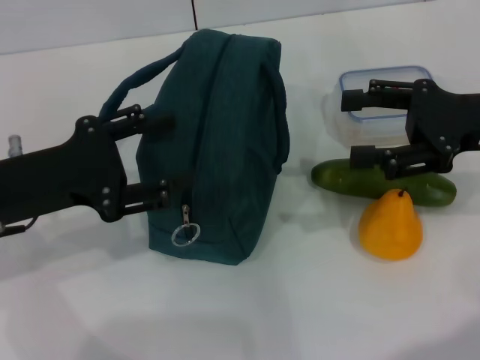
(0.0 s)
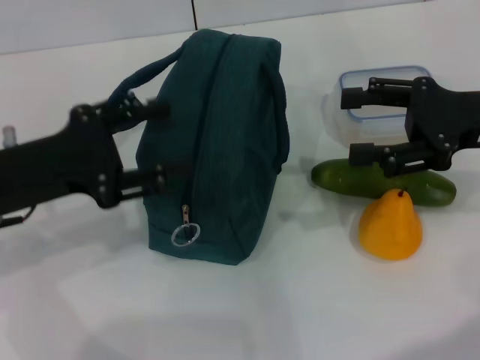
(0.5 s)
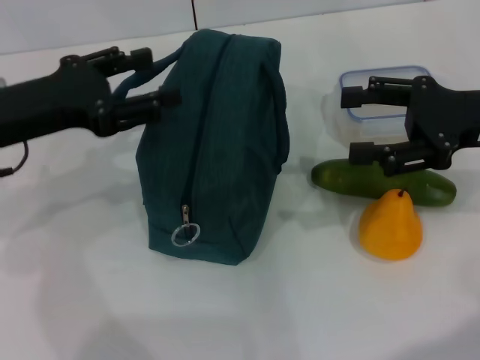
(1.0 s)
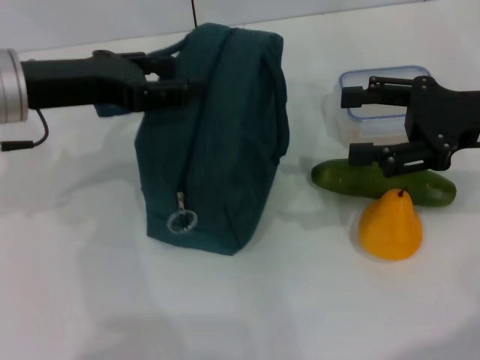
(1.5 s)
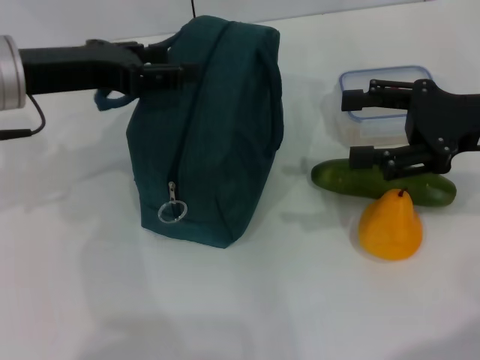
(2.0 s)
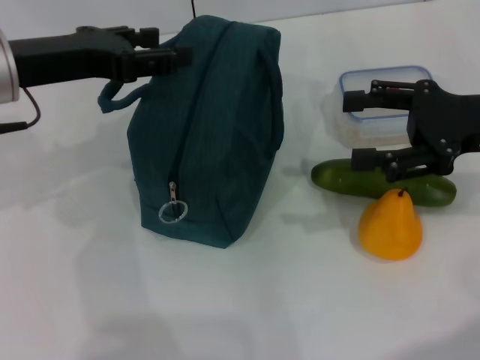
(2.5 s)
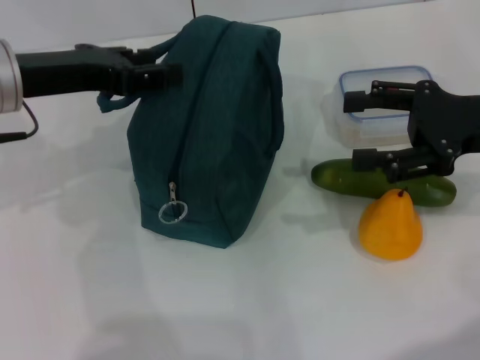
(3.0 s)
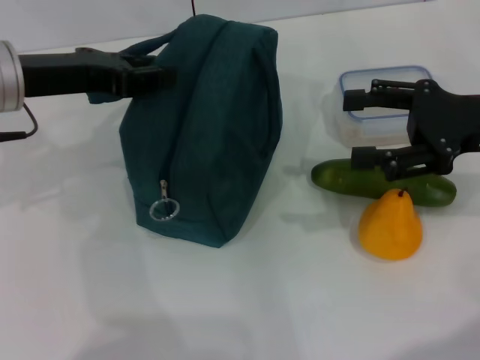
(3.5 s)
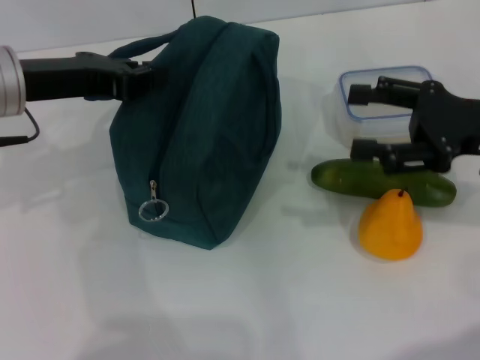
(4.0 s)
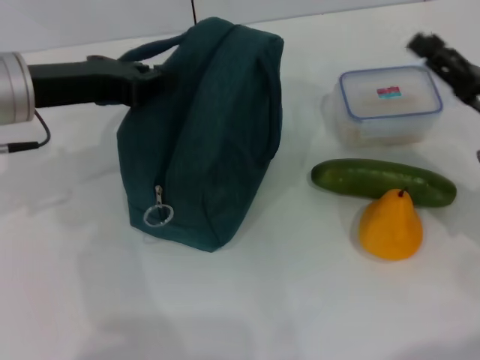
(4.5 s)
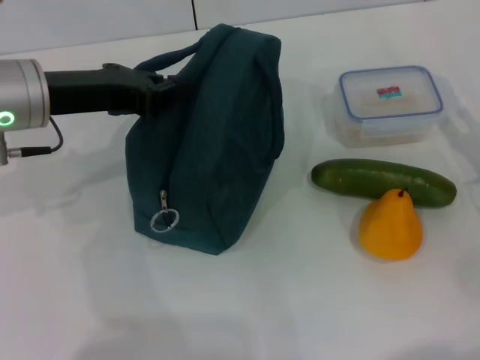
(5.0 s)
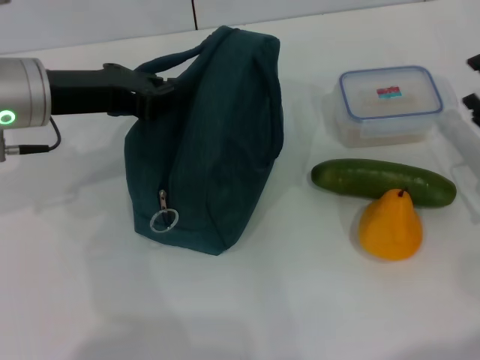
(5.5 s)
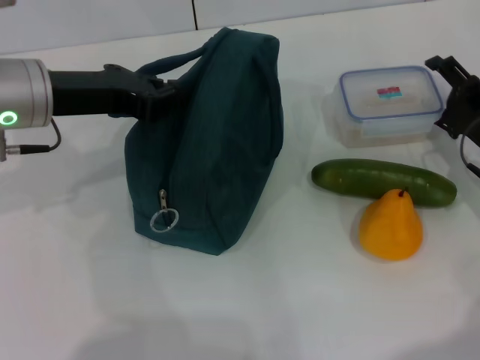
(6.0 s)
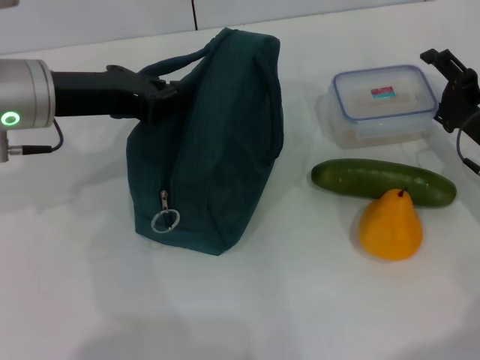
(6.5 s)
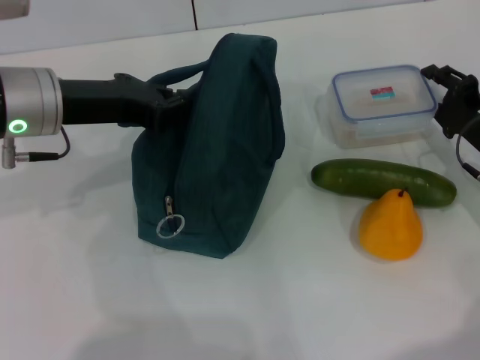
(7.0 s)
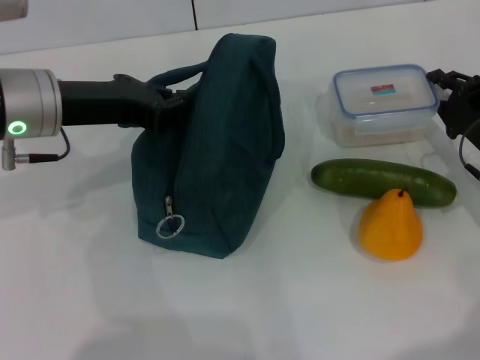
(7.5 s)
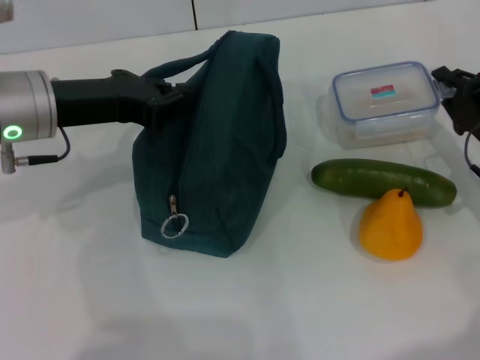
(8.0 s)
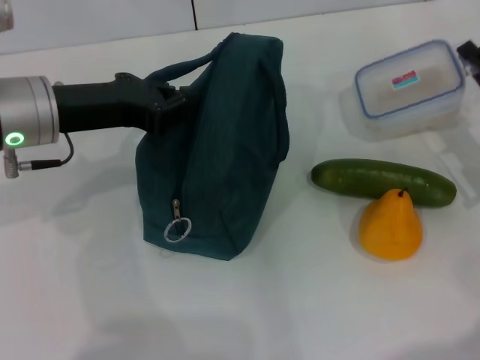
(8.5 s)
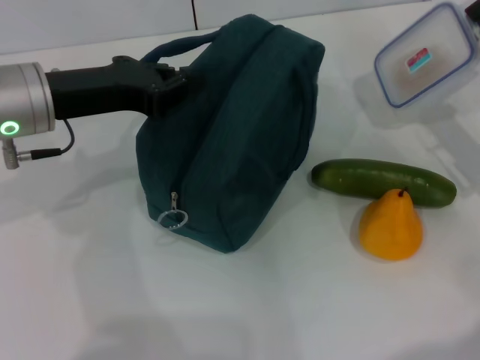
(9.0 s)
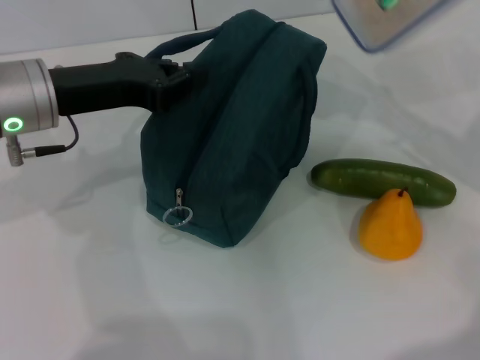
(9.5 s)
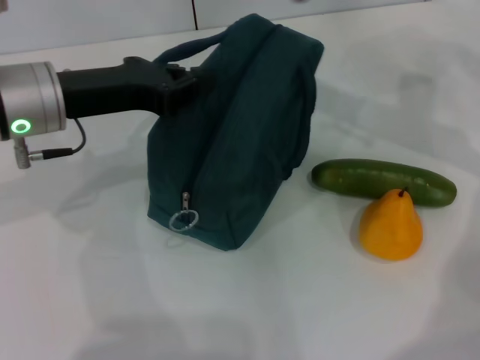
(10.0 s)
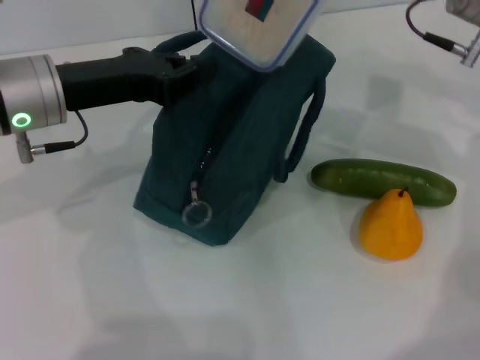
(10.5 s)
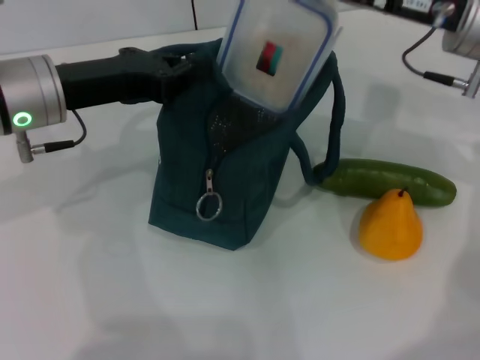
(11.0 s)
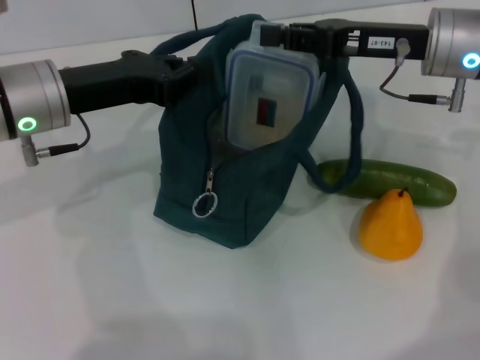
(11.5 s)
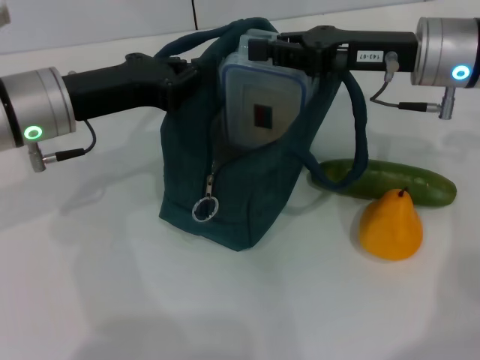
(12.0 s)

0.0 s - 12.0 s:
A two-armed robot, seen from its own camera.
Step, 0.0 s - 4.0 s: Hold the lunch bag with your left hand.
Step, 4.5 s - 8.0 s: Pick up the lunch box with your right hand.
0.0 s - 2.0 s: The left gripper shifts about 10 cm forward and upward.
2.0 s - 4.0 s: The left gripper closes.
4.0 s - 6.0 s: The right gripper is displaced downward by some 10 cm.
6.0 s - 8.0 s: The right gripper closes.
8.0 s - 10.0 s: The right gripper shifts roughly 20 cm upward.
10.0 s - 12.0 s: The right gripper heads to the left and downward, covering some 10 cm.

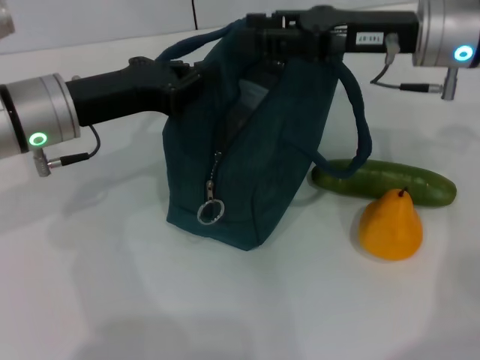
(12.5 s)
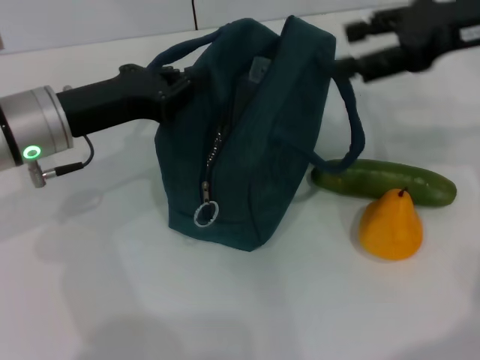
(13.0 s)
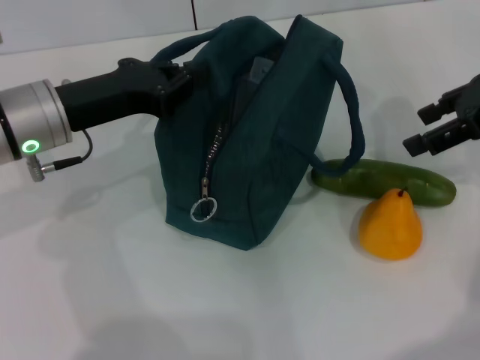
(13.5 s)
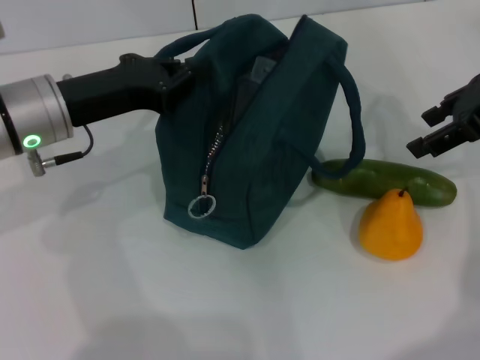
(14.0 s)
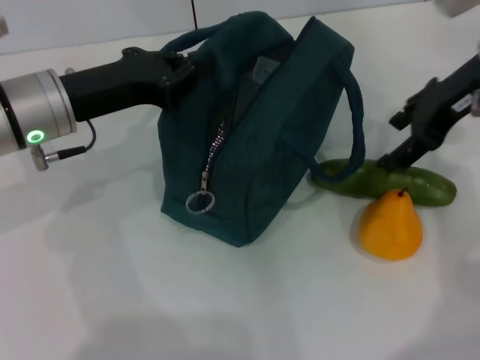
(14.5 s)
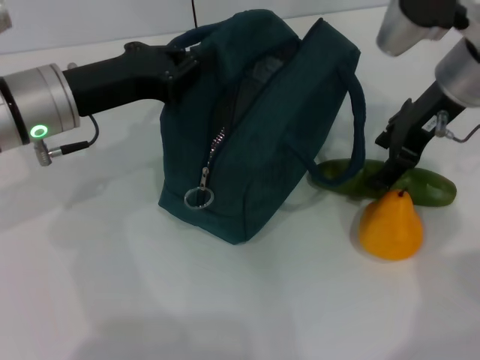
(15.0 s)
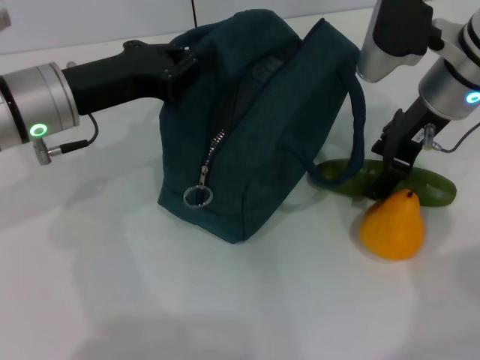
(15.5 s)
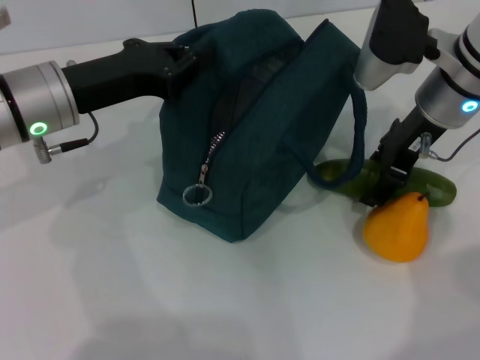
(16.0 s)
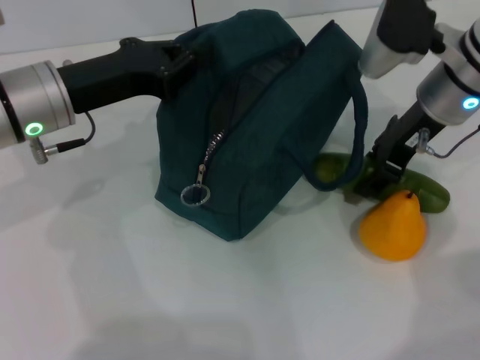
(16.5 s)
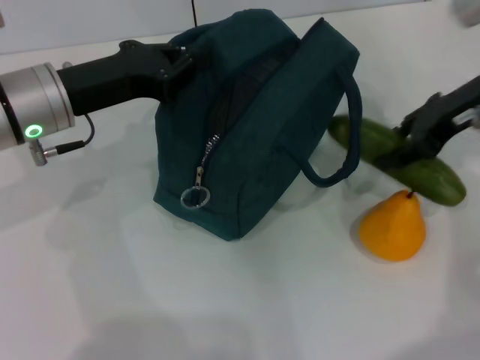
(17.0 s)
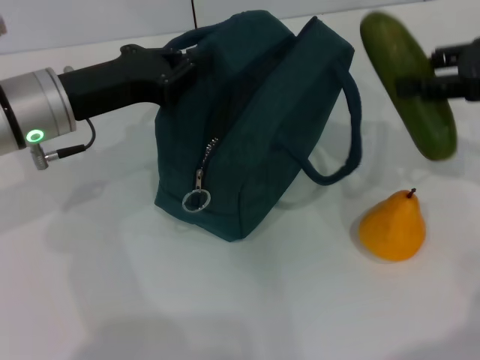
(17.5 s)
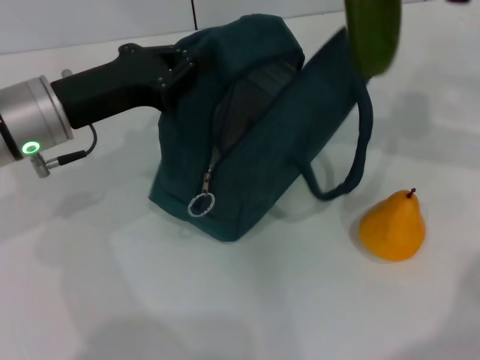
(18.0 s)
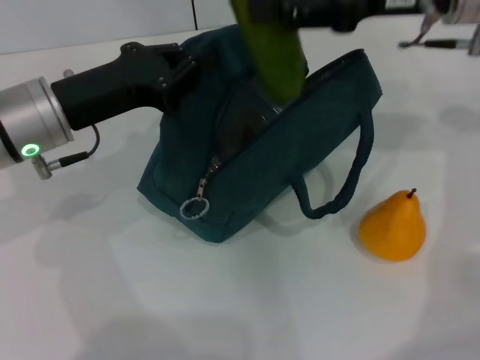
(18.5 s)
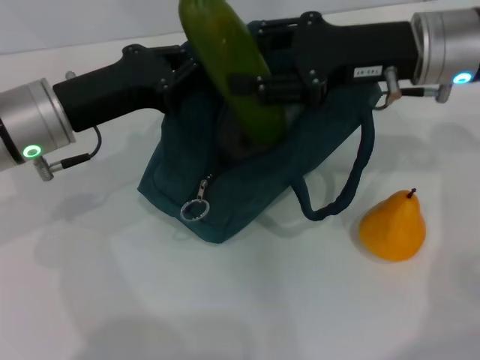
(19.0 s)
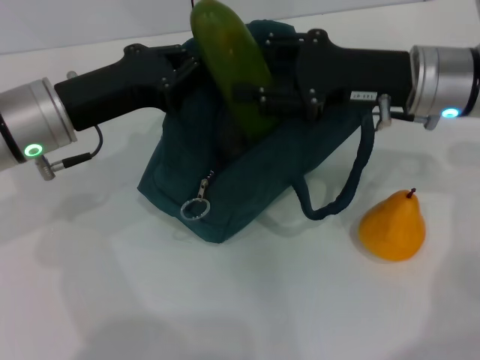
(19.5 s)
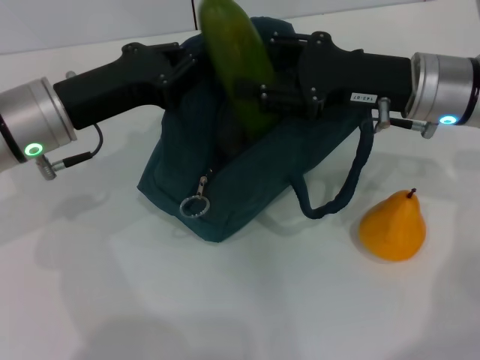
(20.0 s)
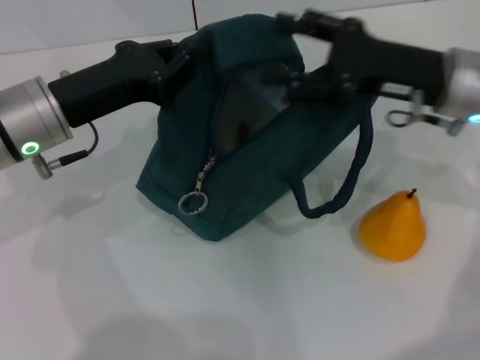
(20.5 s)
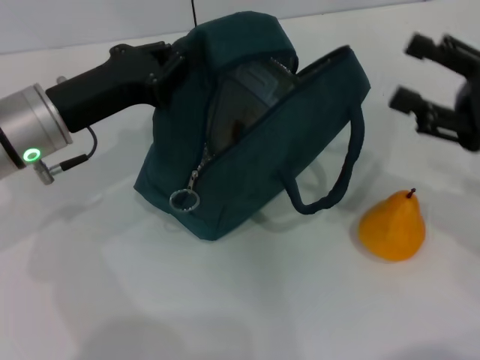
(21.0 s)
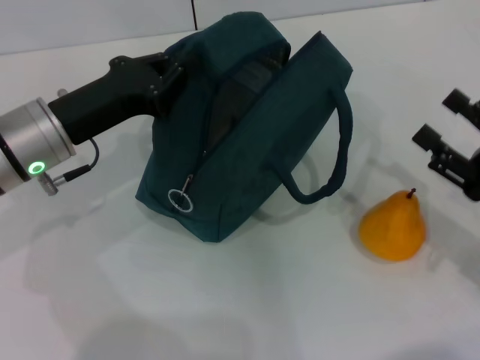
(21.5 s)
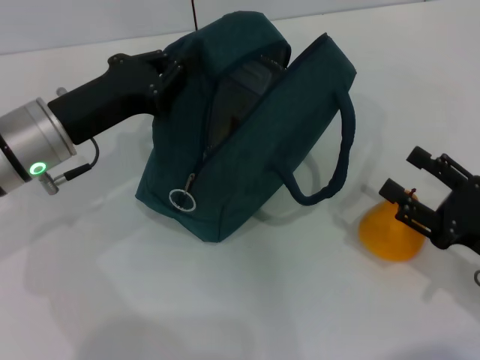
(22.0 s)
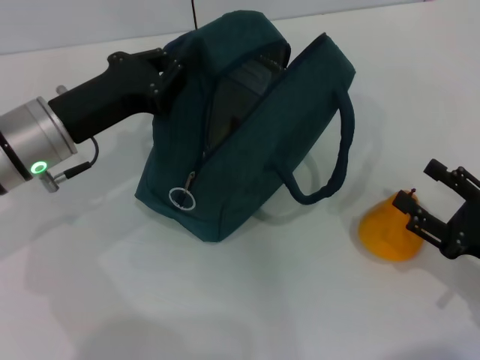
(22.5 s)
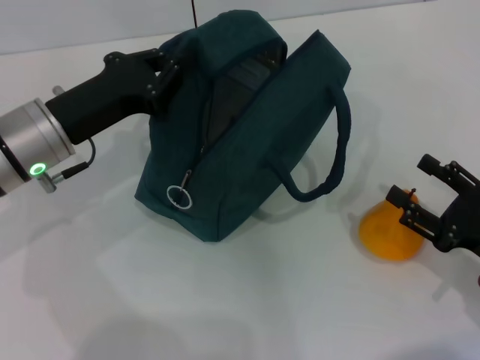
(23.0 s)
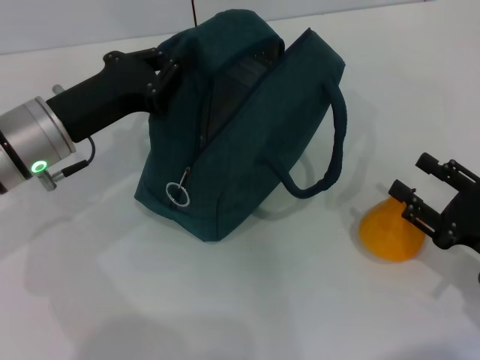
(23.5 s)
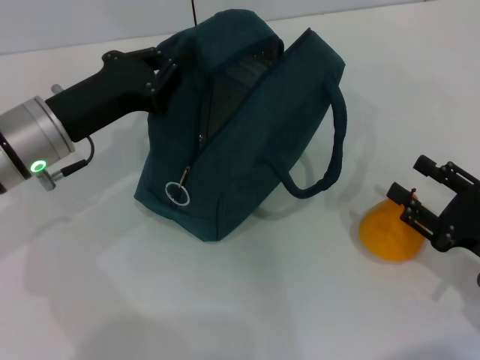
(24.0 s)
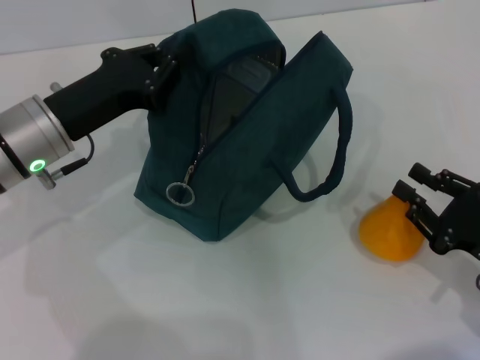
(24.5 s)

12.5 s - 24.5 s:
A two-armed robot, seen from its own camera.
Step, 12.5 s - 16.0 s: Pick up the cucumber with your right hand.
Step, 16.5 s - 20.0 s: Put the cucumber into the lunch bag with your right hand.
12.5 s - 14.5 s: The right gripper opens its fingers.
14.5 s - 16.5 s: The right gripper moves some 5 cm.
16.5 s - 18.5 s: The right gripper shifts approximately 5 cm upward, and travels to the right and back again, some 10 cm each way.
18.5 s - 20.5 s: The right gripper goes about 10 cm downward.
20.5 s - 22.5 s: The right gripper is displaced backward and downward by approximately 20 cm.
22.5 s - 24.5 s: The grippers make only small movements.

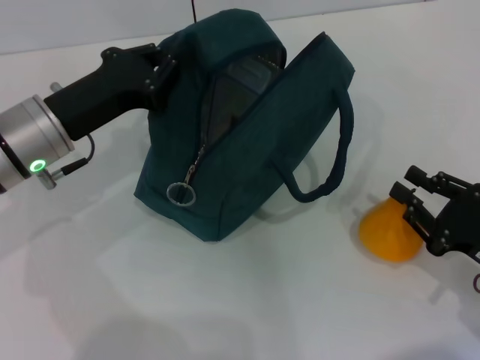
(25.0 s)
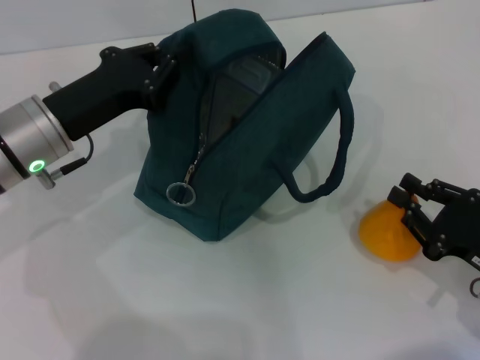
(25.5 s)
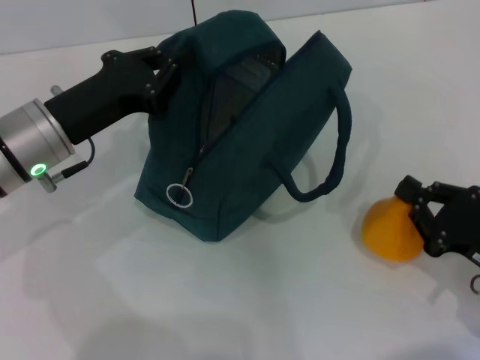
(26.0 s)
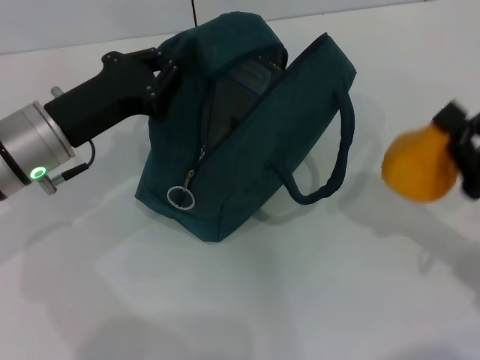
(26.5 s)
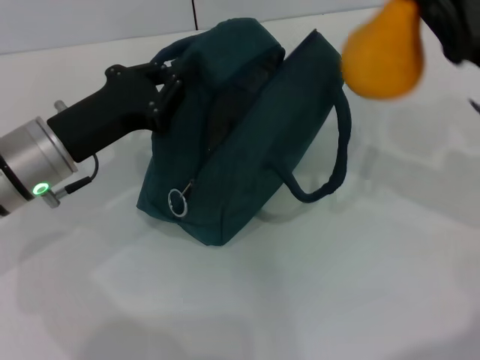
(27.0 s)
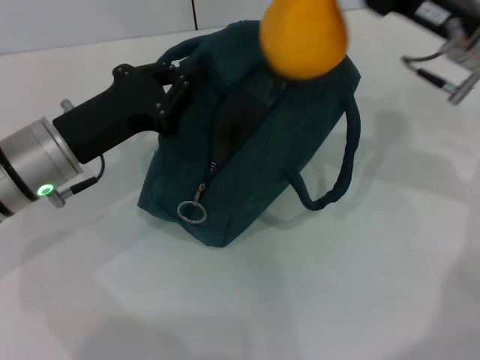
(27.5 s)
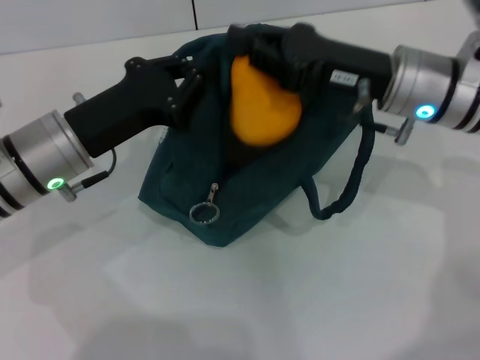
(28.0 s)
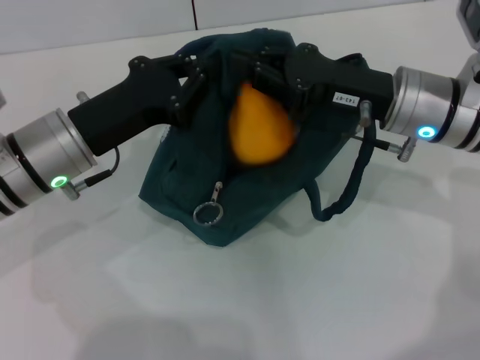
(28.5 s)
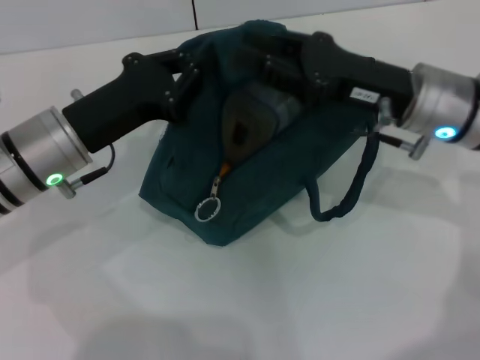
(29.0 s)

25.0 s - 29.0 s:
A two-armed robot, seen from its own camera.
25.0 s - 27.0 s: The right gripper shifts roughly 15 cm upward and forward.
27.0 s - 29.0 s: The right gripper is displaced to the left by some 10 cm.
